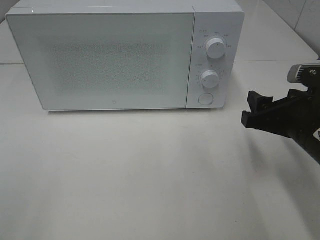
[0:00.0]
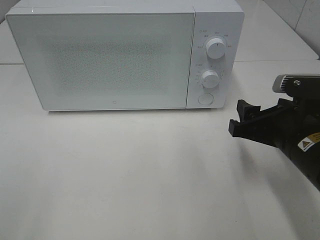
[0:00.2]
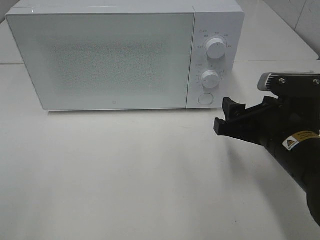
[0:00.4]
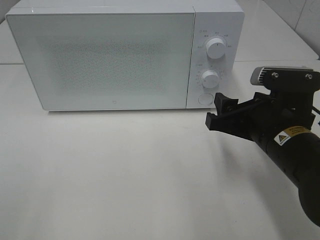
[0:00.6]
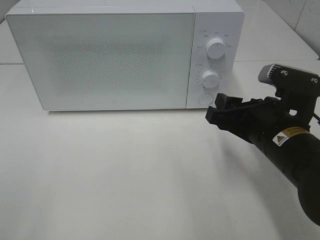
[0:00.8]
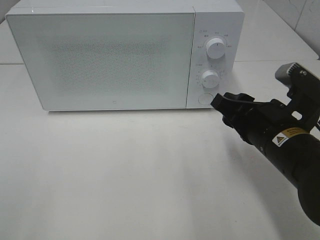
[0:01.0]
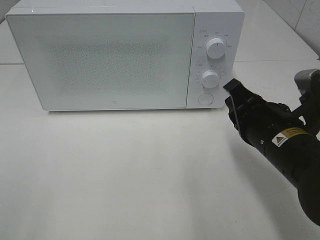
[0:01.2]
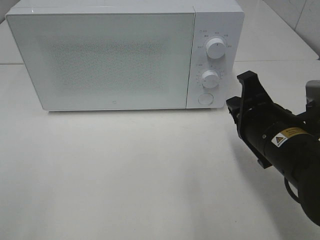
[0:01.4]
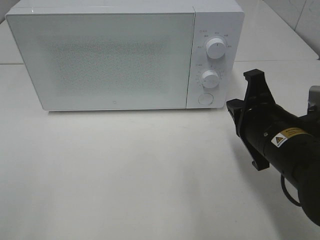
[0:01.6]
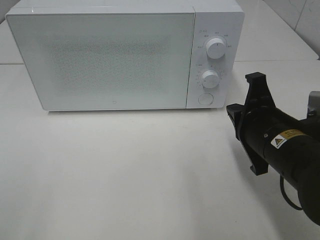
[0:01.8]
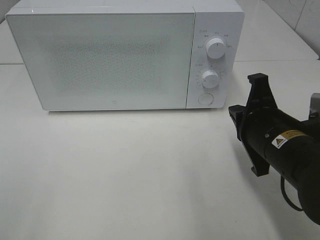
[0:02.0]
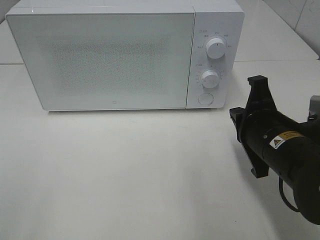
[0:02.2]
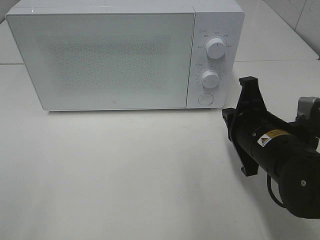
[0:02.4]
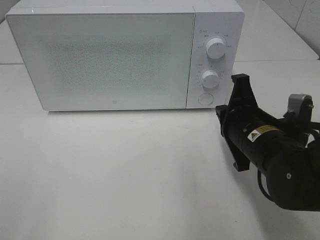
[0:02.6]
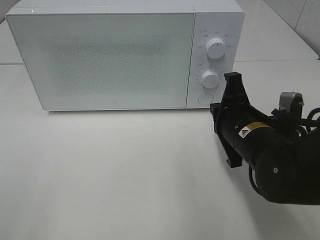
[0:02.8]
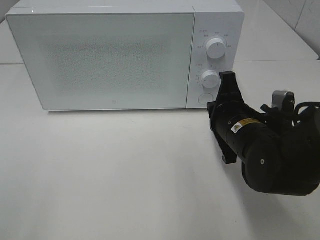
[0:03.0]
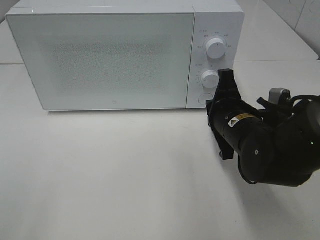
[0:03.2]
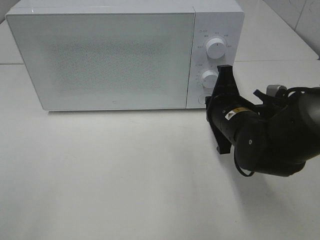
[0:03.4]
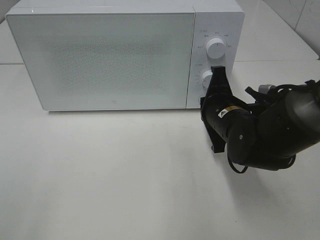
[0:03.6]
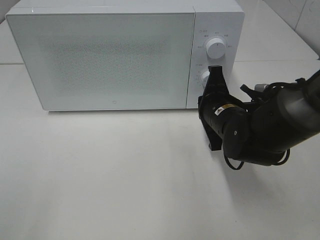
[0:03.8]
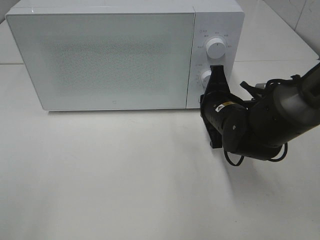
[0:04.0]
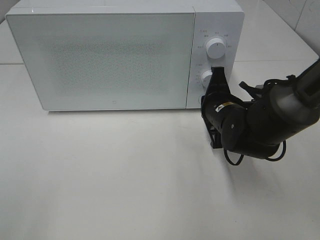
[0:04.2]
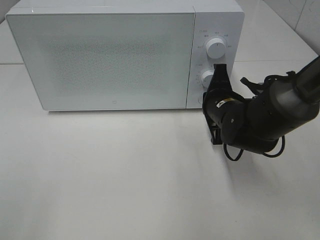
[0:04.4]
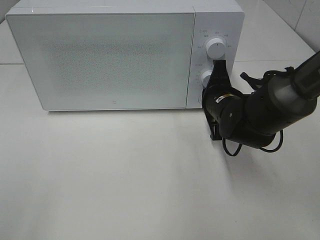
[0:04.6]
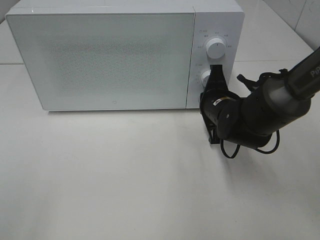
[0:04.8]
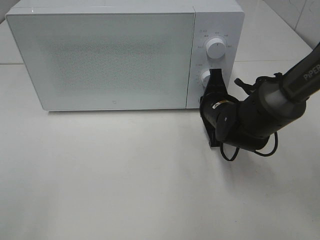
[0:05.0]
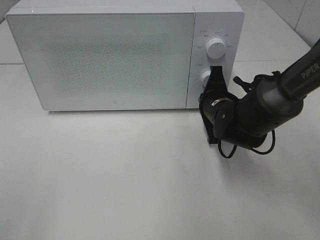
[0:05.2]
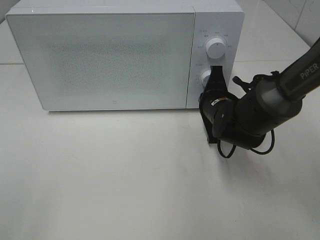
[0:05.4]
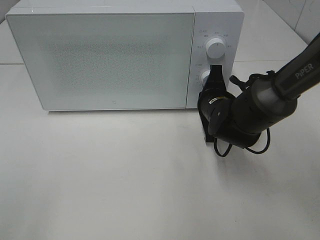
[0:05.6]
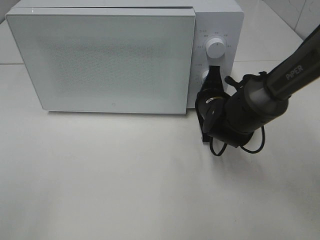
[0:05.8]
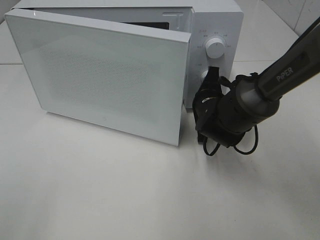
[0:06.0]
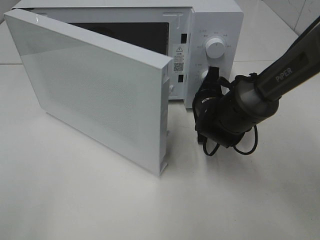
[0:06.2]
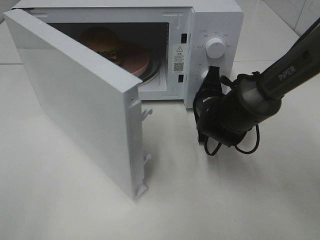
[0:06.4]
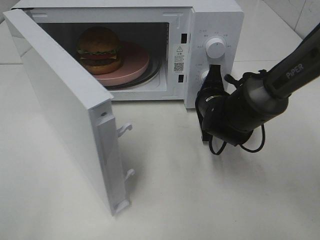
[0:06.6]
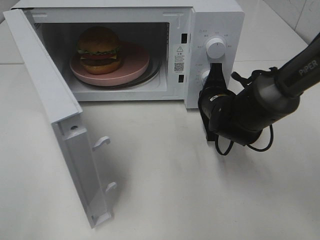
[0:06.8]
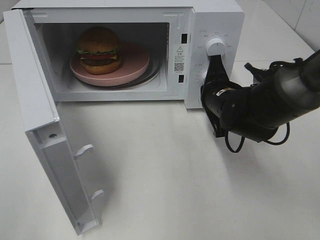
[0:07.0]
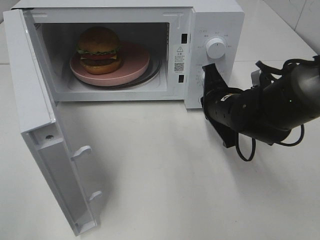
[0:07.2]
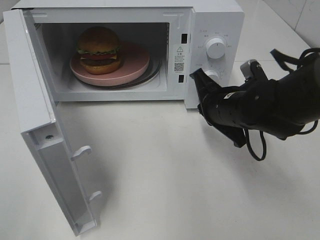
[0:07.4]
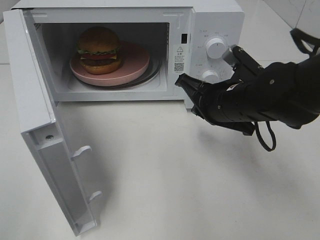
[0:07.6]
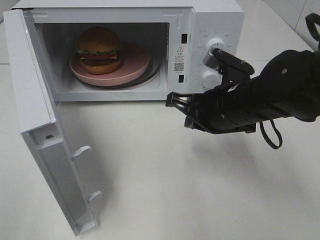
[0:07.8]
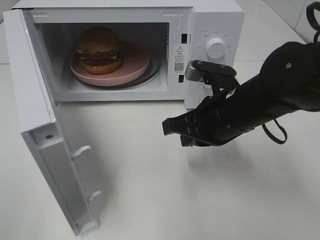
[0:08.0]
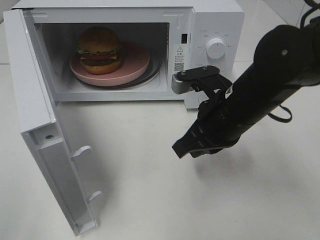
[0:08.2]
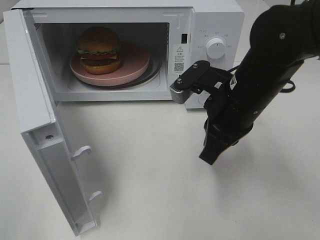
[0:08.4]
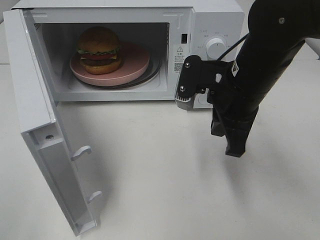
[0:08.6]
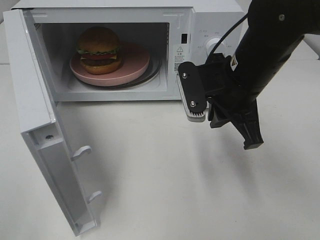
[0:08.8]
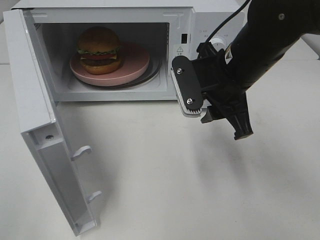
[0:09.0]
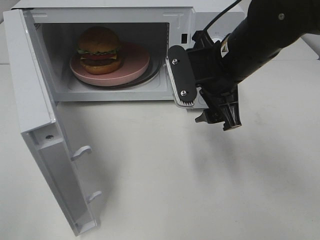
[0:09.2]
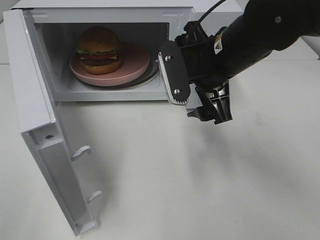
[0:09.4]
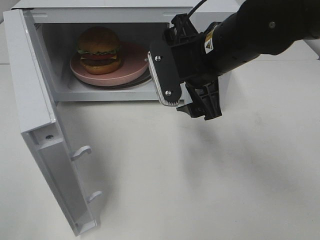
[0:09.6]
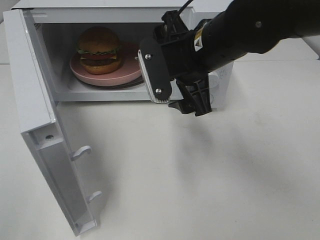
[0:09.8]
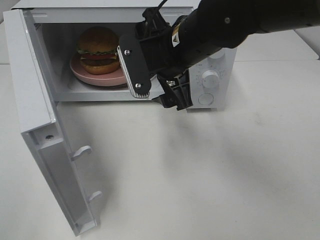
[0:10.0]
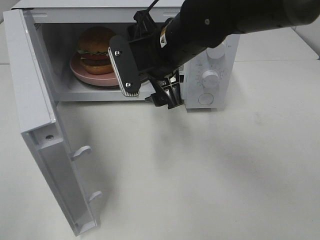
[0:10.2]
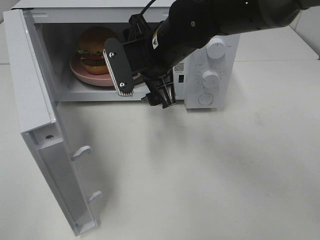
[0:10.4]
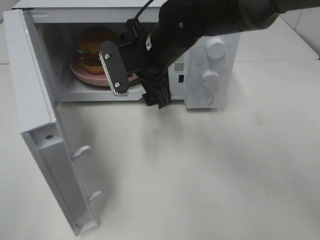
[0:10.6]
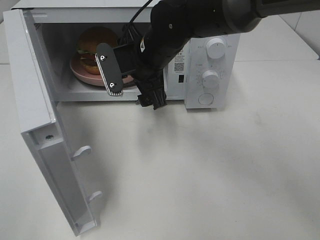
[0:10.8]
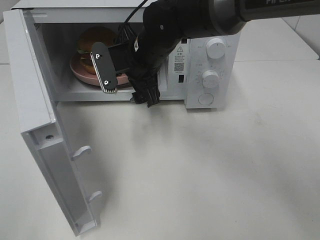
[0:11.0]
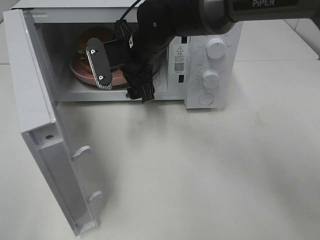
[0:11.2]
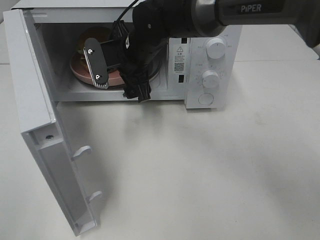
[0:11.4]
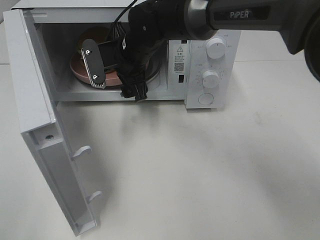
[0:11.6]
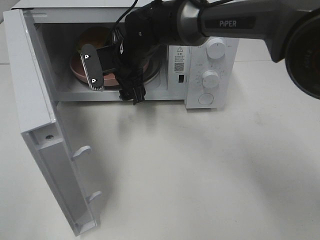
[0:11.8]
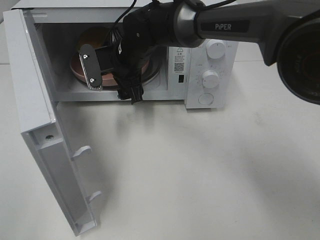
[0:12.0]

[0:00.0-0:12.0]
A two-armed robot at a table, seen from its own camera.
Task of the whole recording: Heat the burger.
Step, 0:00.0 to 0:06.8: Right hand: press the switch.
0:00.0 to 0:01.6: The right gripper goes about 5 cm to the left, and closes its fingers.
0:01.6 to 0:03.0: The right gripper shifts by approximately 5 cm.
0:03.0 to 0:04.4: The right gripper moves forward, some 5 cm.
0:04.4 to 0:06.0: There are only small adjustments of the grippers.
0:06.0 to 0:07.6: The right gripper heads upward and backward, covering approximately 10 cm.
0:07.6 to 0:09.0: The right gripper travels upward by roughly 5 cm, and opens.
0:09.0 to 0:10.4: The right gripper goes approximately 10 cm to the left and forward, and opens.
0:10.4 to 0:12.0: The right gripper shifts about 10 cm forward, to the left and downward.

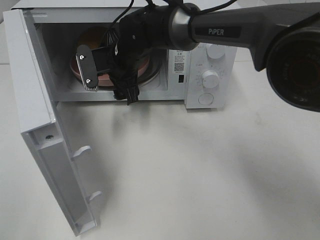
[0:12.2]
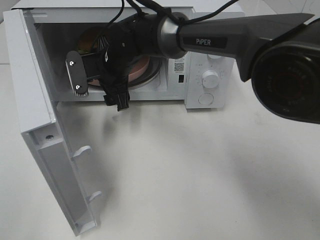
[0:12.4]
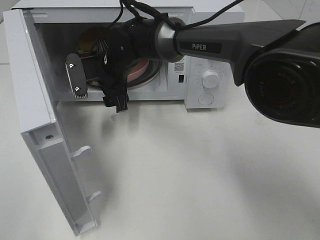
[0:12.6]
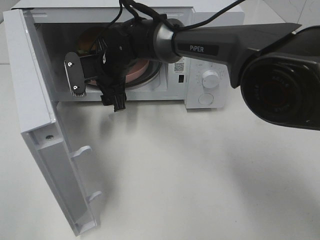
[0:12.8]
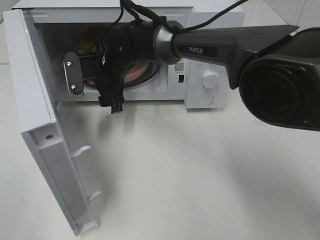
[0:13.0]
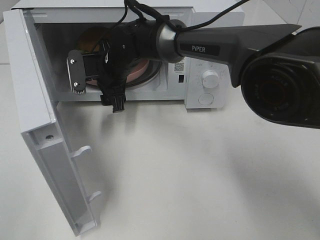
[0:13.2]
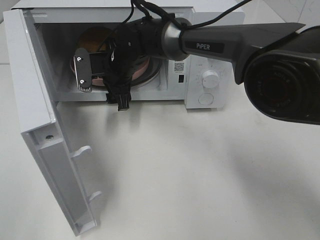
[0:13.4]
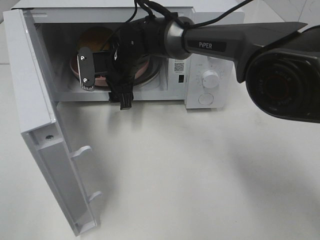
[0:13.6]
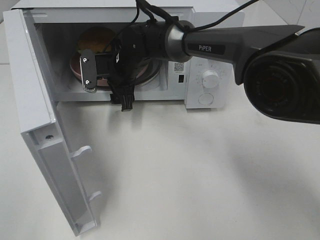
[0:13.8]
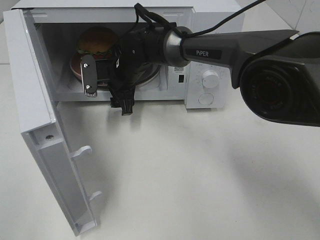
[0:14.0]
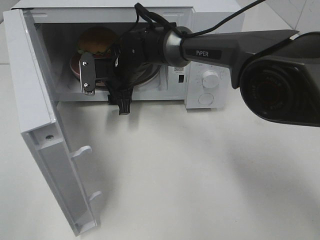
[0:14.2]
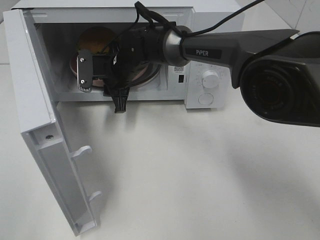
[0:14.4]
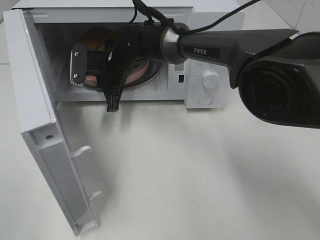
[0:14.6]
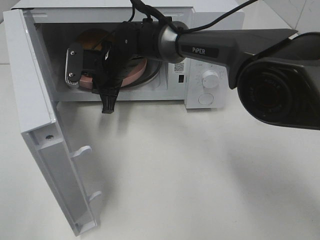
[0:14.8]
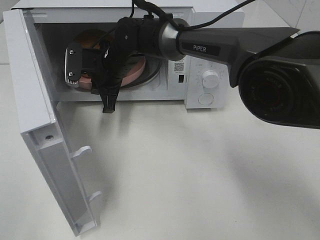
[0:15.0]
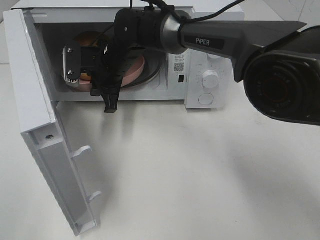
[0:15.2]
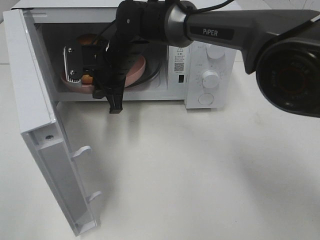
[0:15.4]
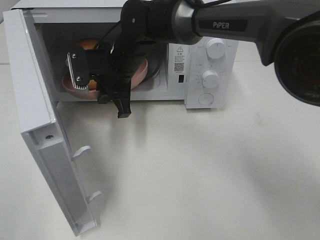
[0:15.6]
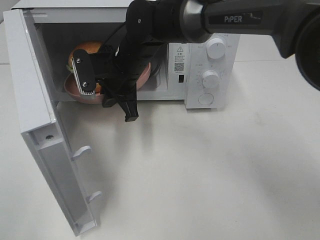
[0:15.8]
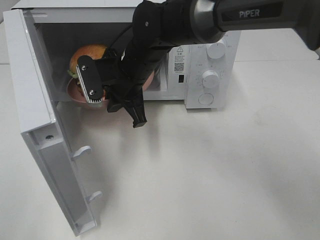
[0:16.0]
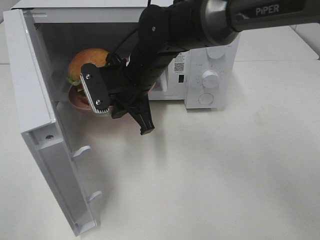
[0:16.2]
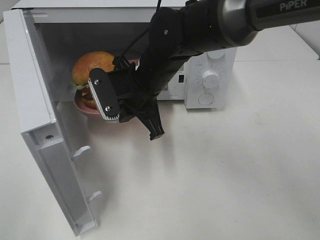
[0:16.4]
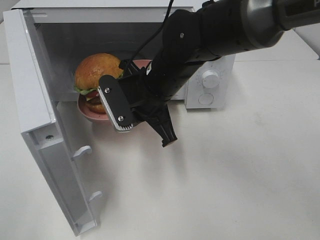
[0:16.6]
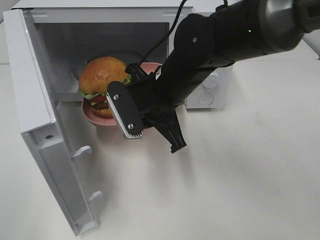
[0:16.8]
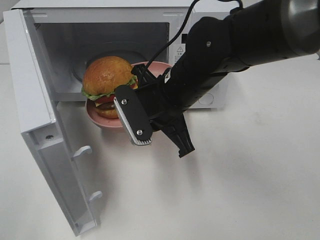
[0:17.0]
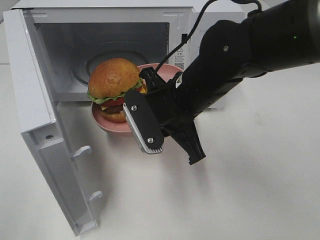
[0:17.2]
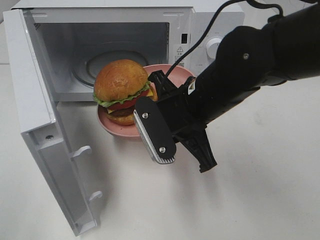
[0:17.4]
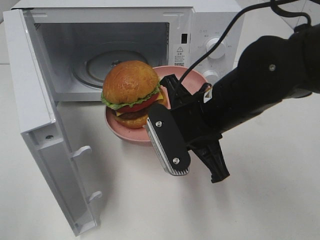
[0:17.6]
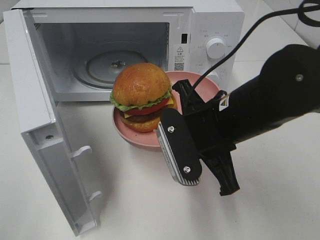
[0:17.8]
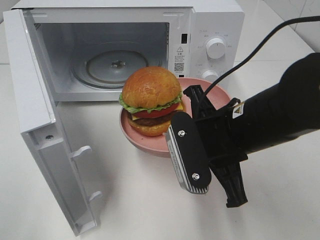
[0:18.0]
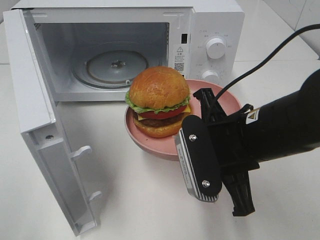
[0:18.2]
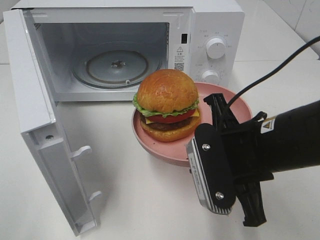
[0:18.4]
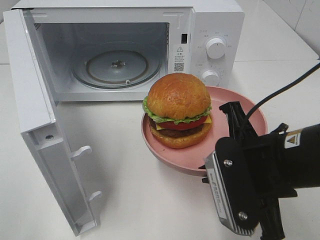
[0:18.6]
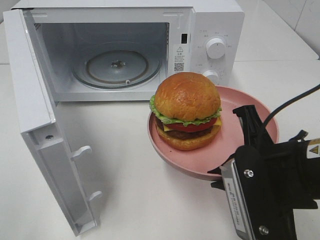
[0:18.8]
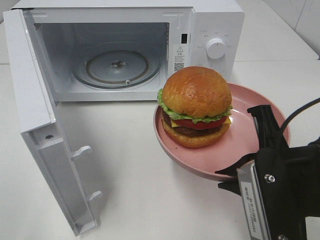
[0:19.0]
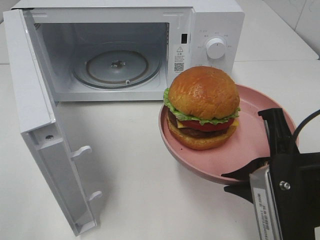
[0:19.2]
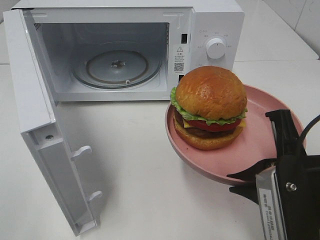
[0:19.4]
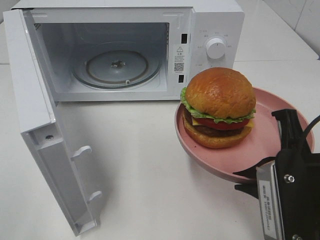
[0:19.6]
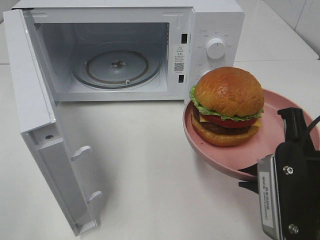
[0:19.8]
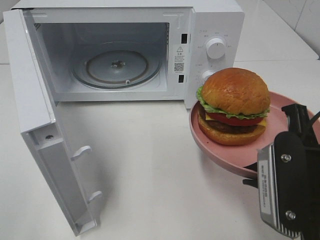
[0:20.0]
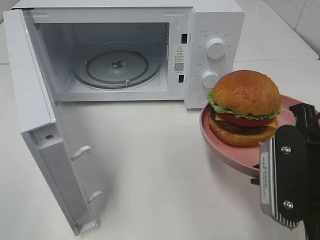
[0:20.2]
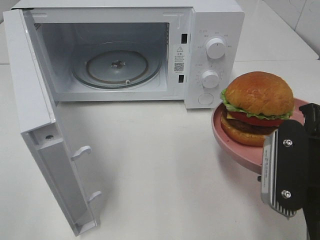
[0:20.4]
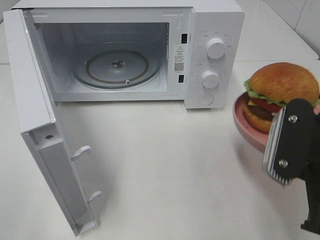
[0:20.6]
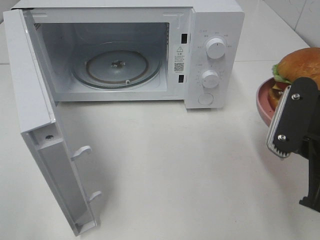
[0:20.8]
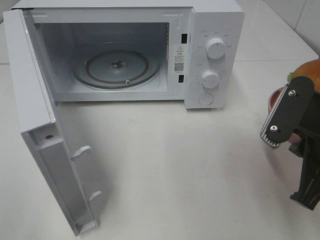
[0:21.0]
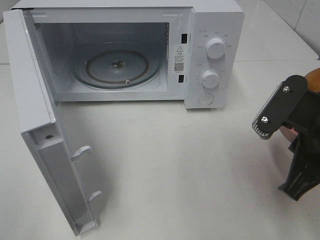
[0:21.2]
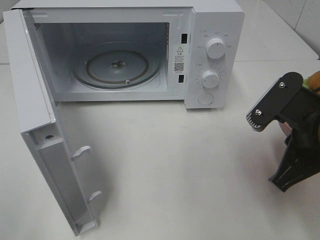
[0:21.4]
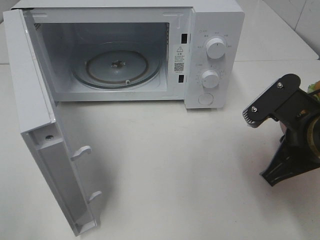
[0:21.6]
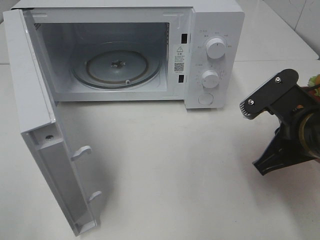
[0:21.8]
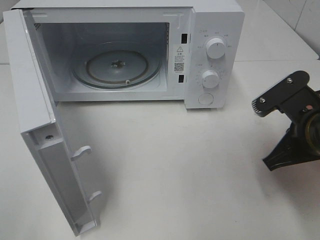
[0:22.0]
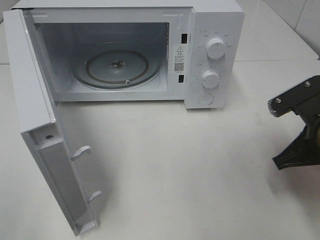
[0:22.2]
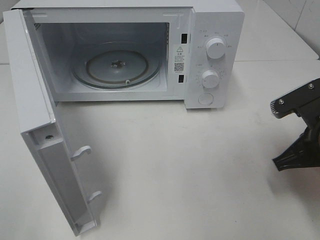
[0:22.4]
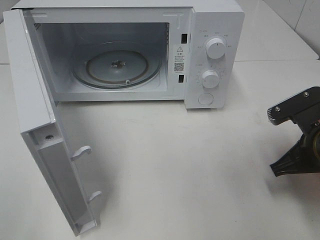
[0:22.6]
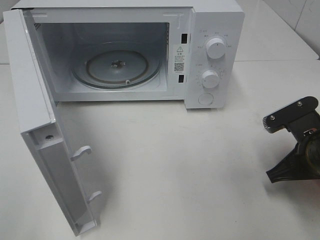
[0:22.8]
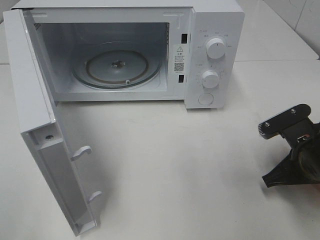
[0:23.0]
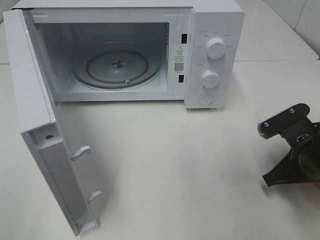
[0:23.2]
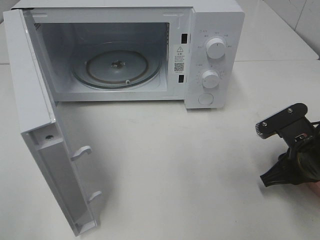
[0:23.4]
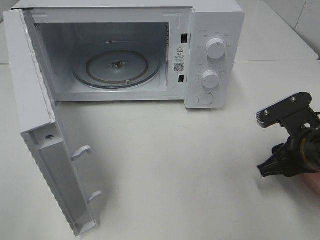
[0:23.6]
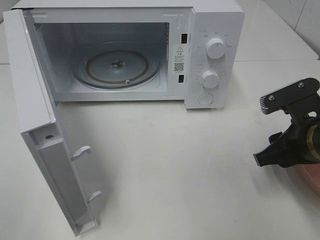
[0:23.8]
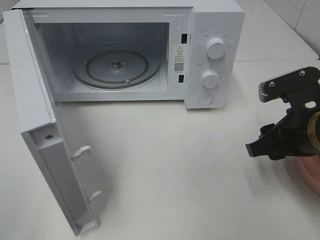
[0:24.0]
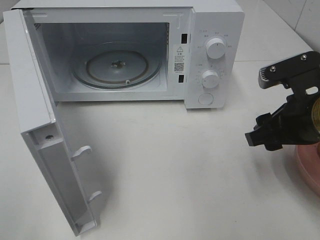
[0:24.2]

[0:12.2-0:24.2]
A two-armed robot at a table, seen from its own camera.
Task of the whole recording: Heat the burger.
Step, 0:12.2 to 0:14.4: Right hand: grab the plate with the hamburger.
Step, 0:14.6 to 0:23.4: Right hand: place the plate on the table.
0:12.2 to 0:13.8: The grippers make only small movements.
0:13.8 to 0:15.2: The right gripper closes.
0:15.2 to 0:16.6: The right gripper goes roughly 15 cm backward and to the right.
0:16.6 to 0:18.2: The right gripper is displaced backward and to the right by some 15 cm.
0:18.2 to 0:19.8: The right gripper shifts some 10 cm backward and to the right.
0:21.2 to 0:22.6: The right gripper heads downward, covering about 5 cm.
0:22.6 to 0:24.2: The right gripper is displaced upward by approximately 5 cm, and opens its fingers.
